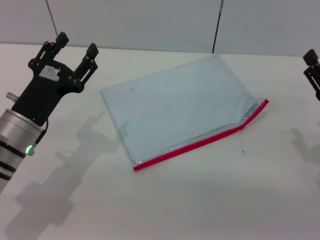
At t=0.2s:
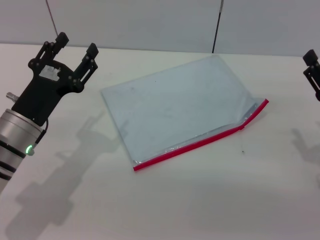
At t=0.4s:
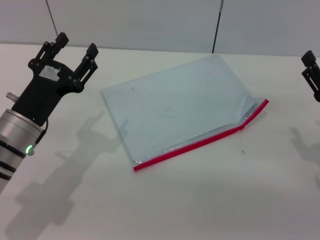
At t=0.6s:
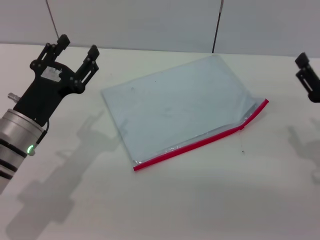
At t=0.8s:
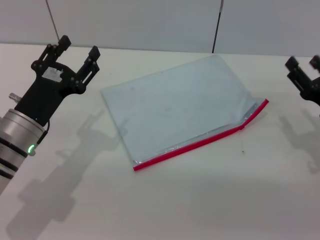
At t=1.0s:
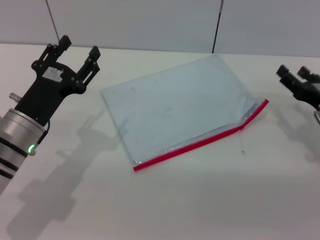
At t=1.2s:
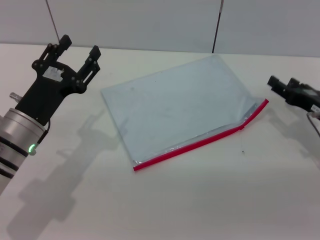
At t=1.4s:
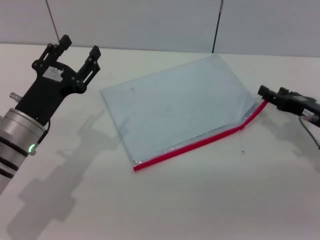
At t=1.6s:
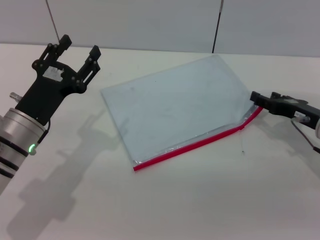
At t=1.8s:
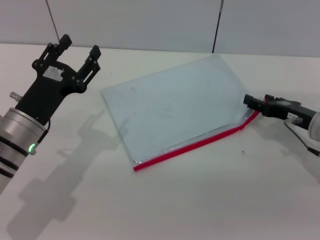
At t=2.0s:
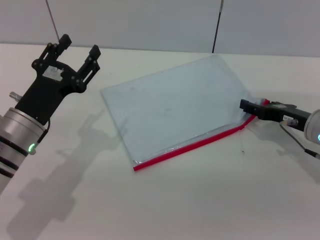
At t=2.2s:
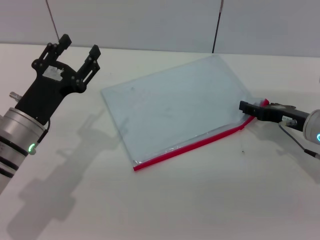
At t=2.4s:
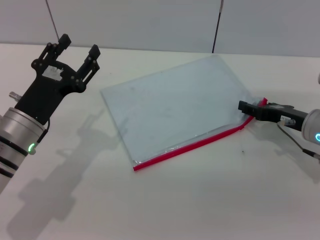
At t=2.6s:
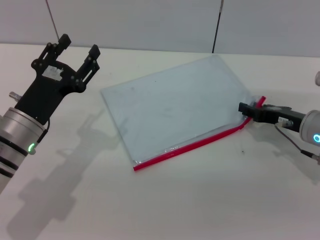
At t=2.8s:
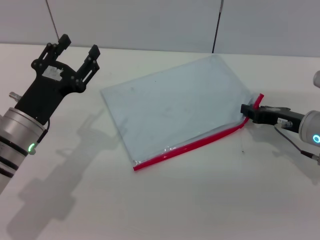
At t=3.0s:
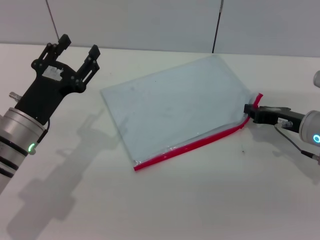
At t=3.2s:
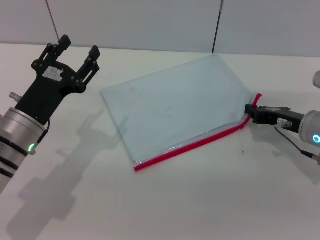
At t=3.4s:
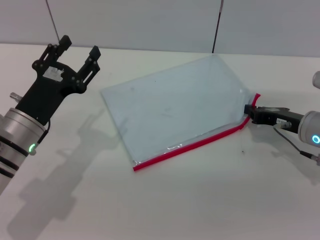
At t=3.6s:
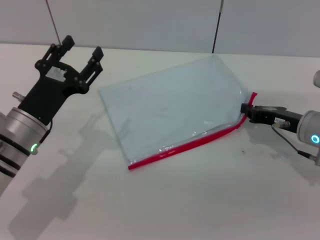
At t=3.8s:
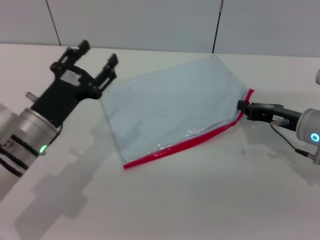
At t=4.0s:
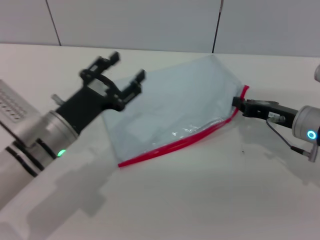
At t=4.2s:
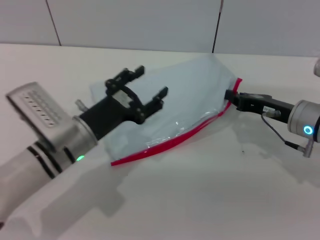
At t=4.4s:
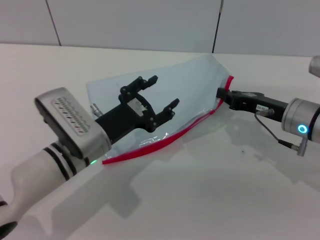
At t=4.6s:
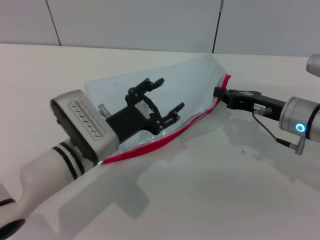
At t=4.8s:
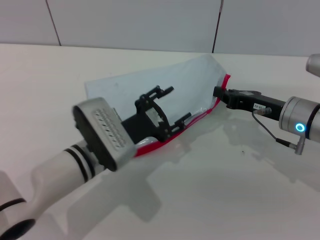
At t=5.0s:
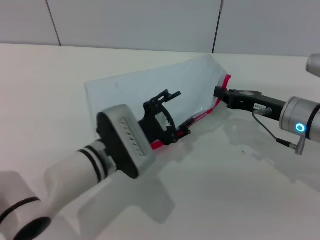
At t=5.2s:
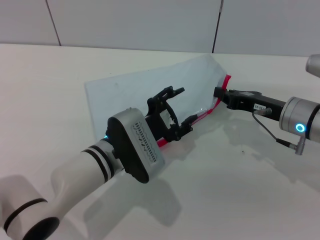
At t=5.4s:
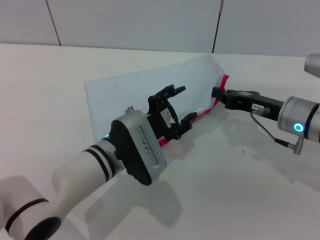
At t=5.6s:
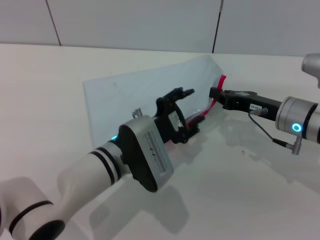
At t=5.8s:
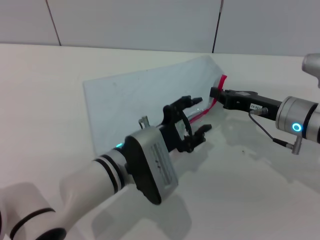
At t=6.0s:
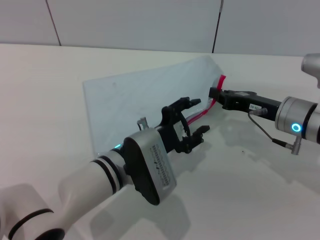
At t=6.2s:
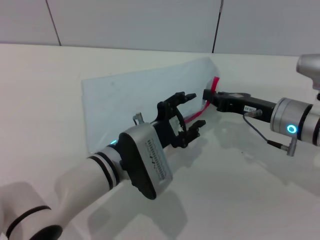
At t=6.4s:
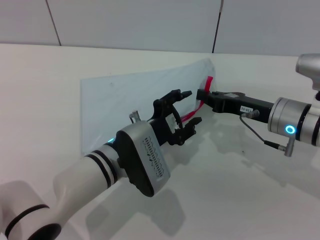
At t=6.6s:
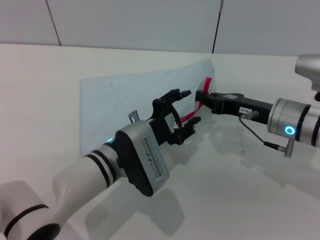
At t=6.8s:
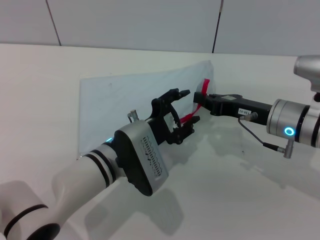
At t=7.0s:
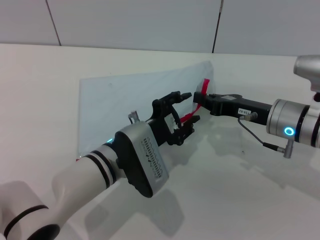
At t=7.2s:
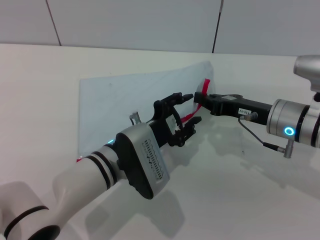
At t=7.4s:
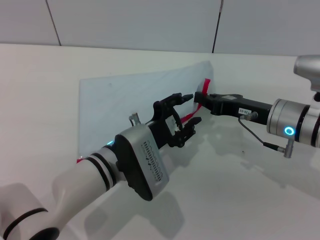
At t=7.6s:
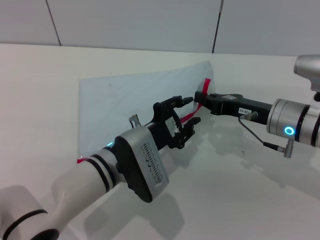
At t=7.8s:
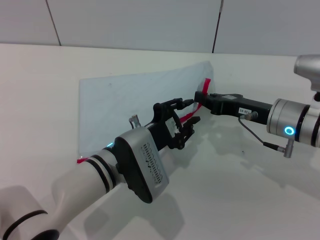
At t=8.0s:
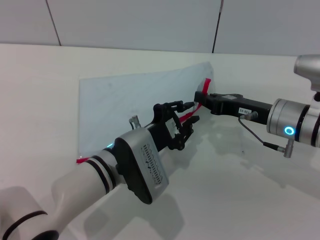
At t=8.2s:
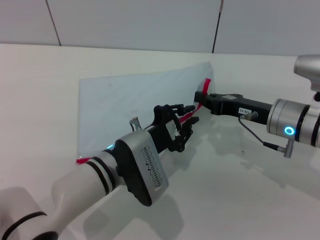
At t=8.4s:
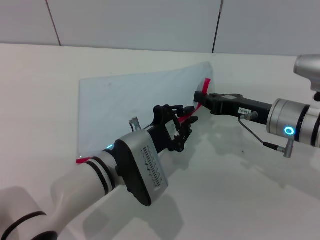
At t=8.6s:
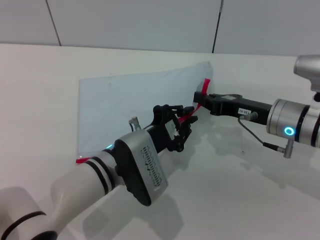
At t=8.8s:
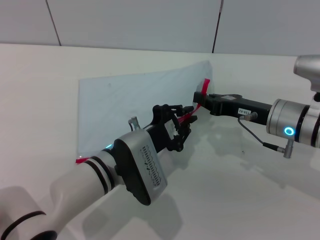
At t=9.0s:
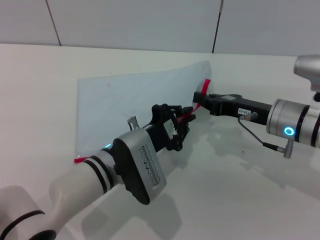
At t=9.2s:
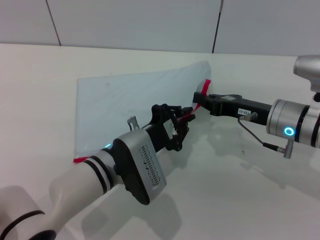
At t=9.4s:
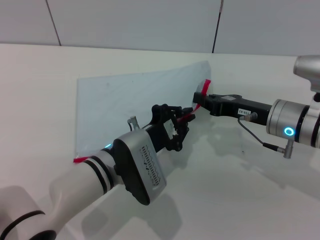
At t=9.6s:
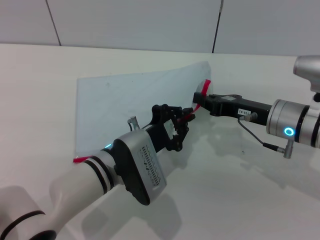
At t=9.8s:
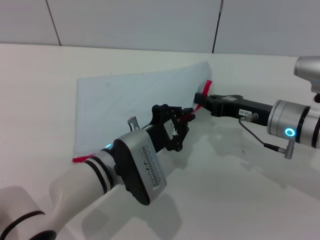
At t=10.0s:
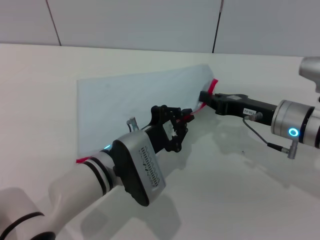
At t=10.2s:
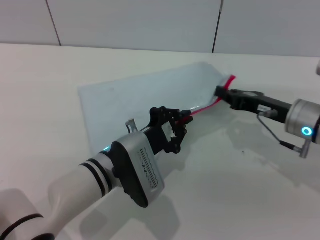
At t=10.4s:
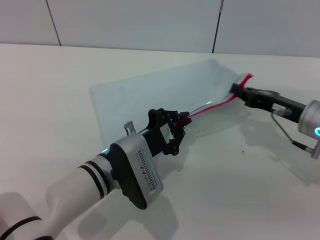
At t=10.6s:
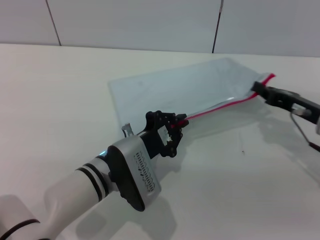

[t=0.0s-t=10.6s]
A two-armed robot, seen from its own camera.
Step, t=0.0s to t=4.4s: Pick up the transparent plastic bag with the right gripper.
t=0.0s to t=1.6s: The right gripper travels forward by roughly 10 cm.
t=1.6s to t=3.0s: The right gripper closes its fingers.
t=3.0s to t=4.6s: The left gripper moves to the right, some 10 cm.
t=4.6s to t=6.0s: The left gripper moves to the right, some 5 cm.
t=6.0s to t=7.6s: There are only small adjustments of the grippers.
t=7.6s to t=9.0s: The left gripper closes its fingers.
t=9.0s to t=10.6s: The right gripper shifts approximately 10 cm to the right.

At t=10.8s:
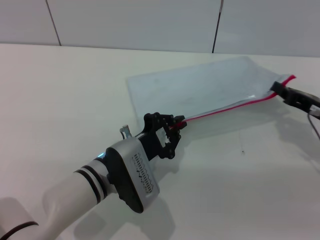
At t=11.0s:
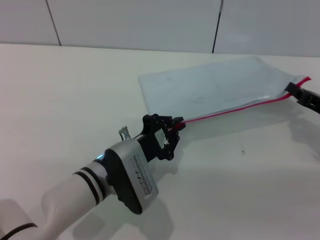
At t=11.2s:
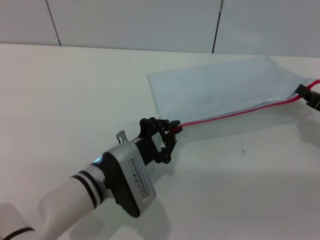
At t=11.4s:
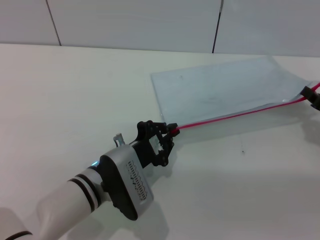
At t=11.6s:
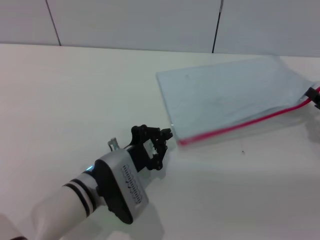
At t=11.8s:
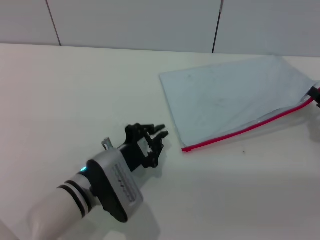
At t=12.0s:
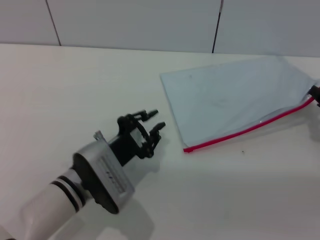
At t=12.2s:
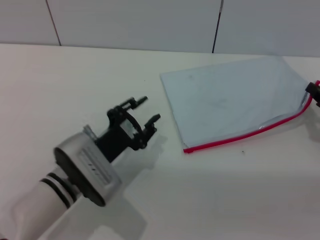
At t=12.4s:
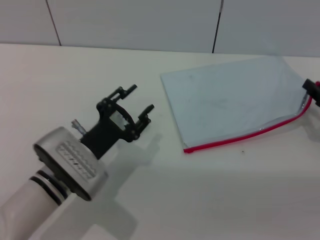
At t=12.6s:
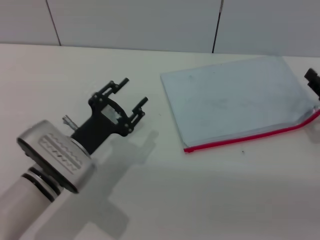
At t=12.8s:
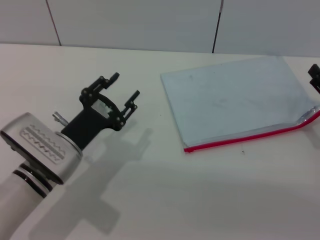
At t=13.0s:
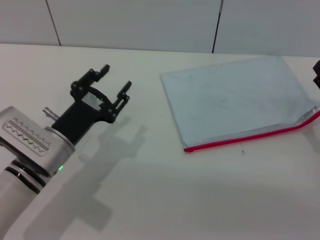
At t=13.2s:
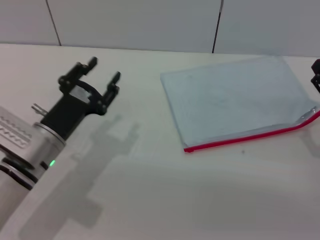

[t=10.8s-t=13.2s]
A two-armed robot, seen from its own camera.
Step, t=12.0s to t=12.4s: Place the transparent plastic bag.
t=10.8s to t=12.0s: The grippers move only a little.
t=12.0s to t=13.2s: The right gripper shifts by approximately 5 cm, and opens, while the left gripper heads to the left, covering about 5 cm, and opens.
